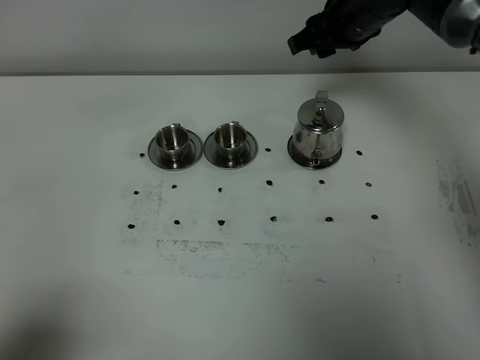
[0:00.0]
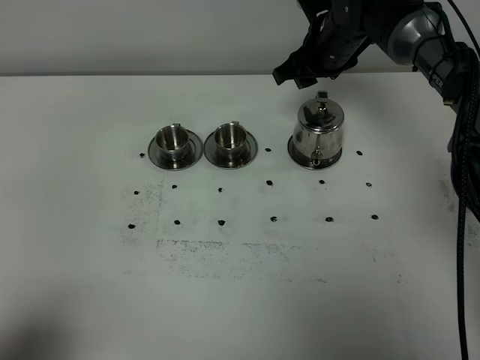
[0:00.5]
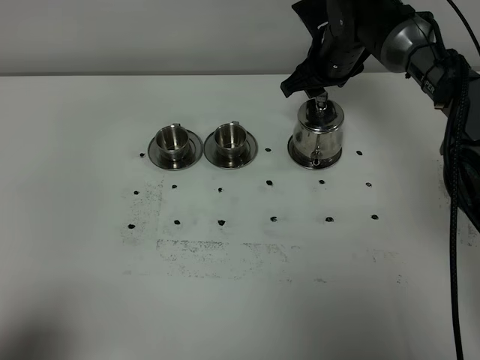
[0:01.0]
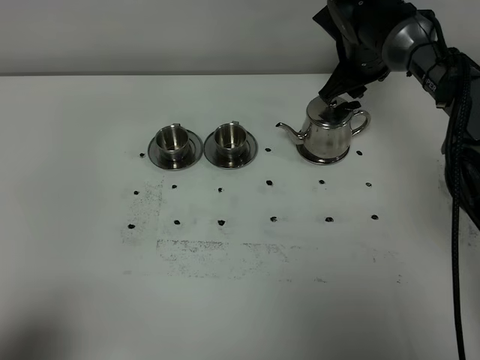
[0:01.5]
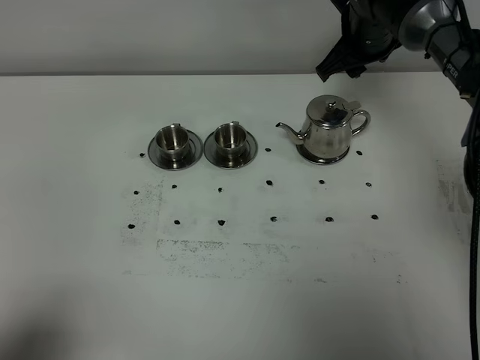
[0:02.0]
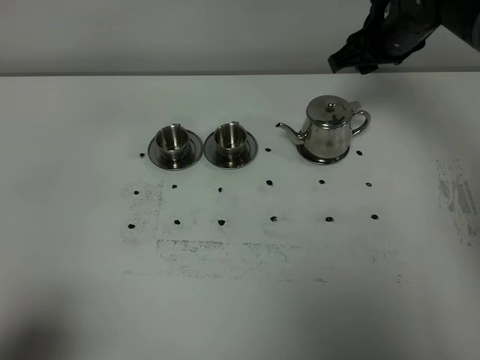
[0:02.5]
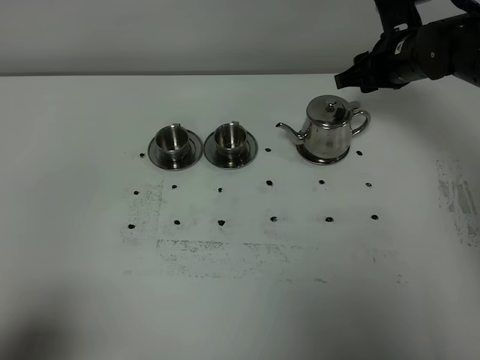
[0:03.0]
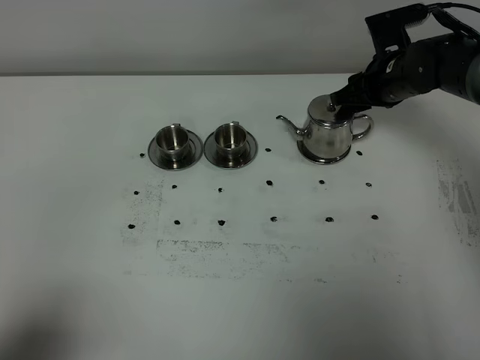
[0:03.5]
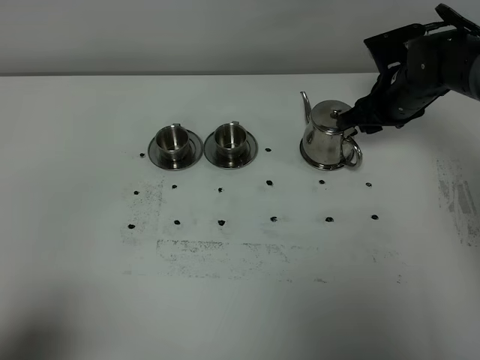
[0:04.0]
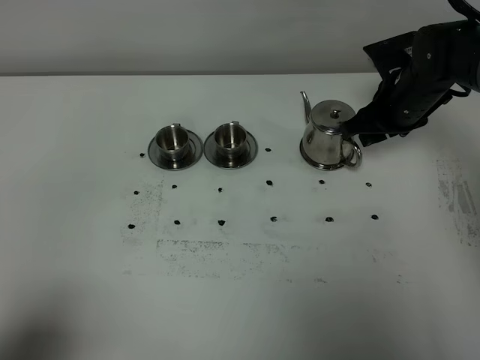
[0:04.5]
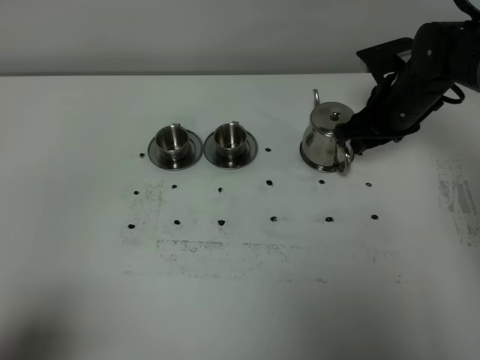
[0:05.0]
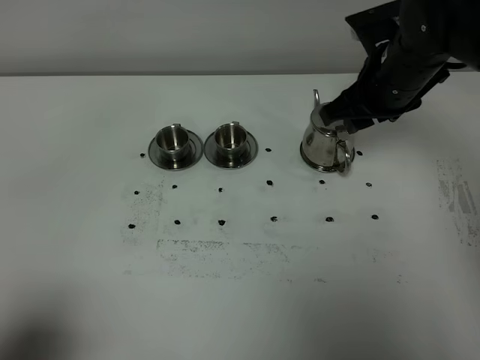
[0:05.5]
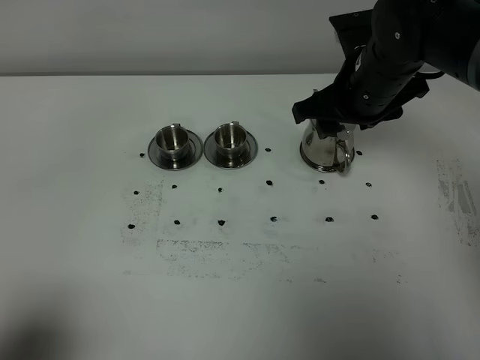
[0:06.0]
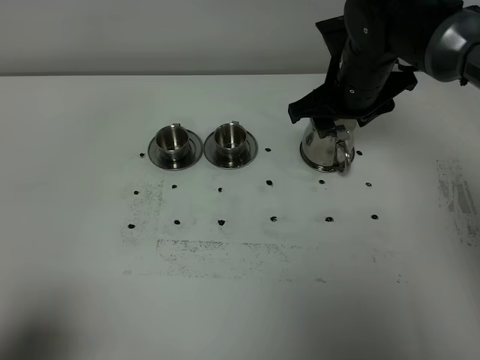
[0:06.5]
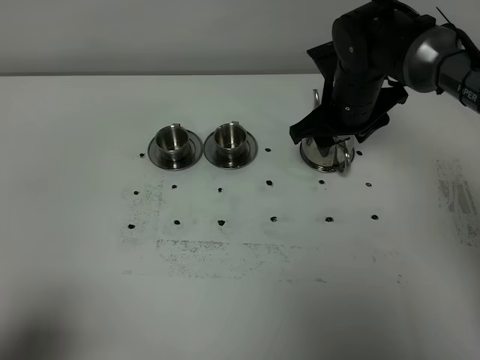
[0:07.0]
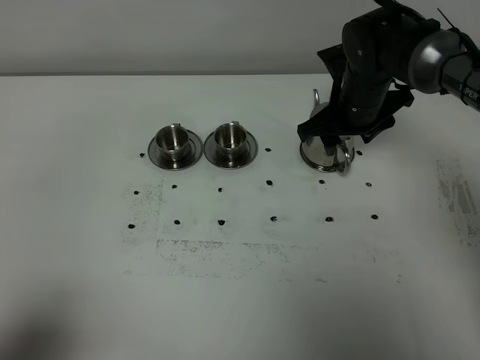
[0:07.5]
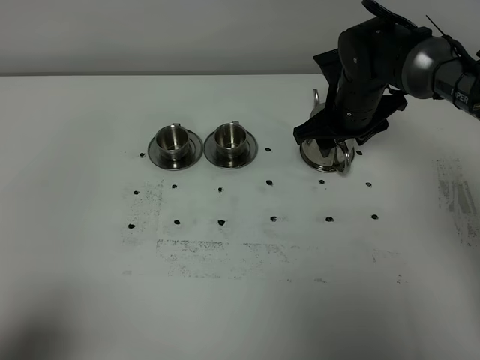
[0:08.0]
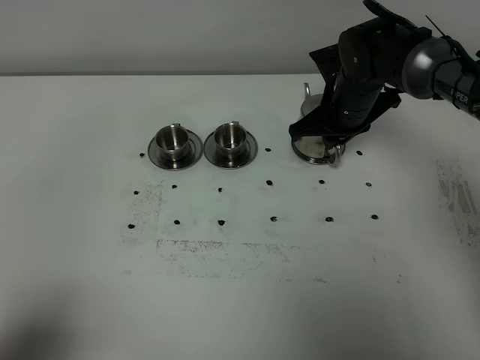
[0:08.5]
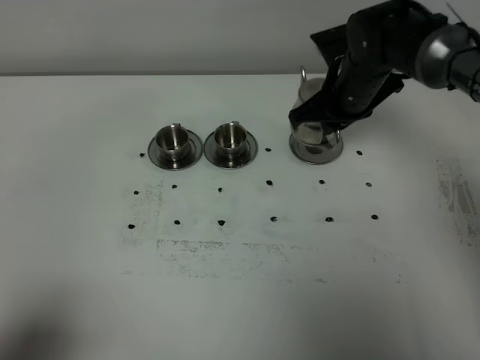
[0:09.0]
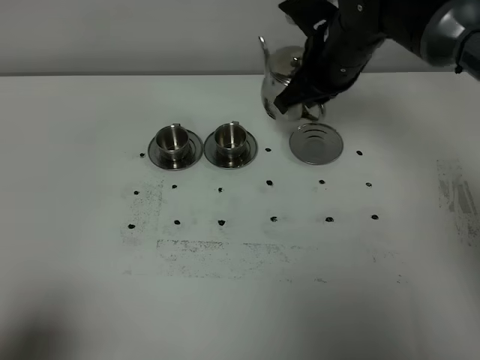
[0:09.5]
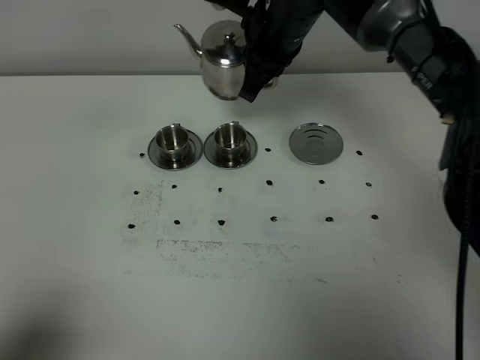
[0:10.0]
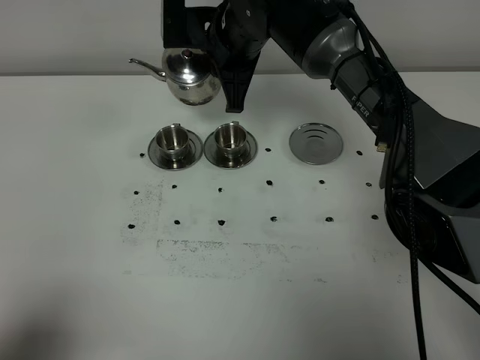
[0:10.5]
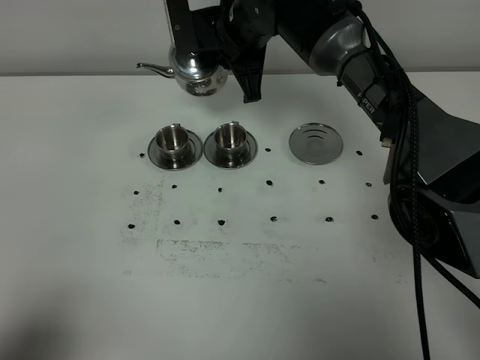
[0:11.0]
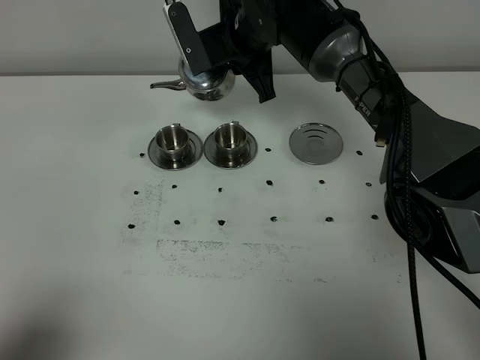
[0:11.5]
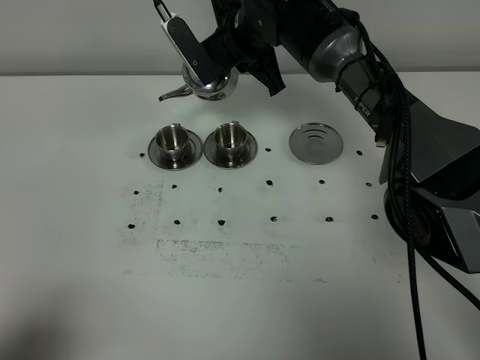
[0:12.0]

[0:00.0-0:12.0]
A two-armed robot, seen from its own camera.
Task of the whole recording: grasp the stainless steel teapot and pour the tea into the two stainless steel teacups one by one, put the stainless steel teapot back in its original place.
Step, 0:00.0 to 0:08.5: Pick up the teapot with the right gripper.
0:00.0 to 0:02.0: The right gripper reaches roughly 10 cm downward, then returns.
0:02.0 to 0:04.0: The right gripper goes some 10 cm downward and to the right.
0:04.0 to 0:06.0: The right gripper moves upward, to the left and backward, about 15 cm.
0:06.0 to 0:08.0: The right gripper is displaced downward and forward by about 10 cm.
0:08.0 to 0:10.0: The right gripper shifts some 15 cm upward and to the left, and closes its fingers.
0:10.0 to 0:12.0: The right gripper changes place by some 5 cm.

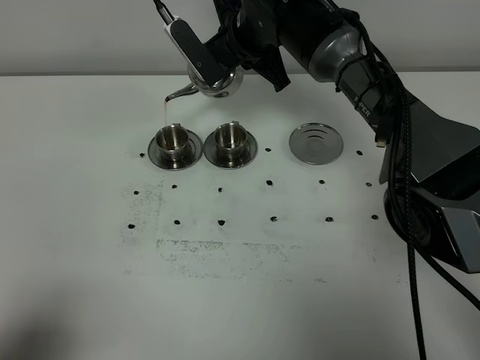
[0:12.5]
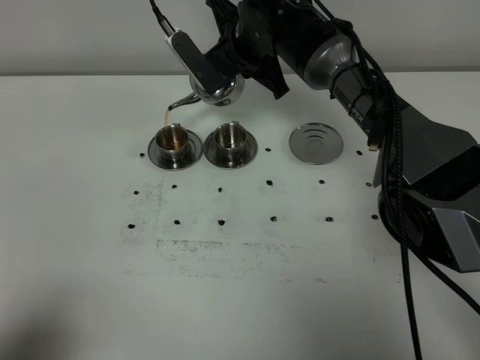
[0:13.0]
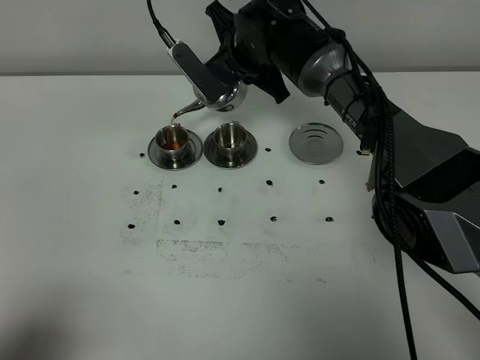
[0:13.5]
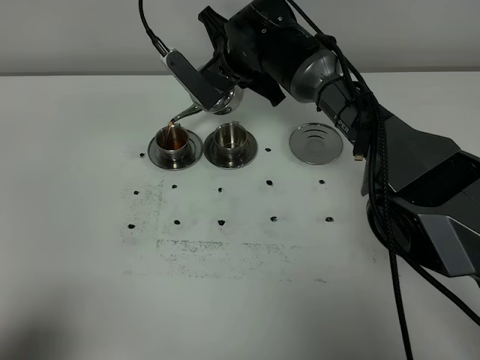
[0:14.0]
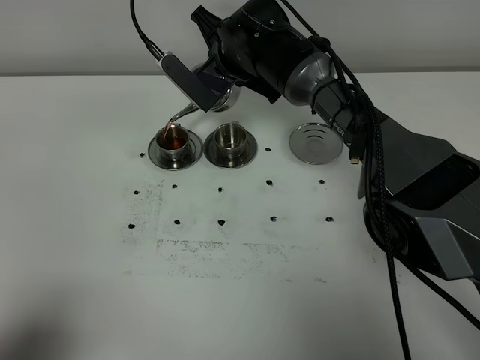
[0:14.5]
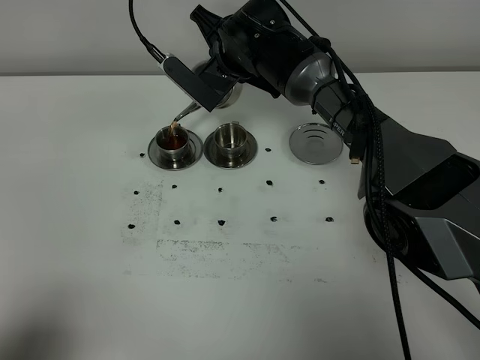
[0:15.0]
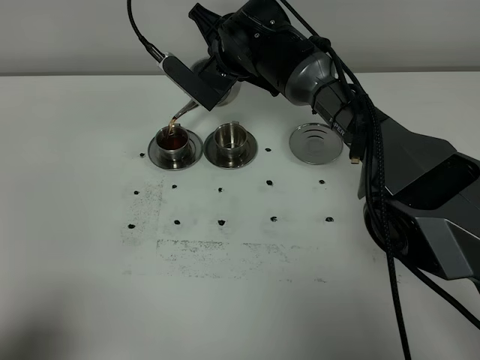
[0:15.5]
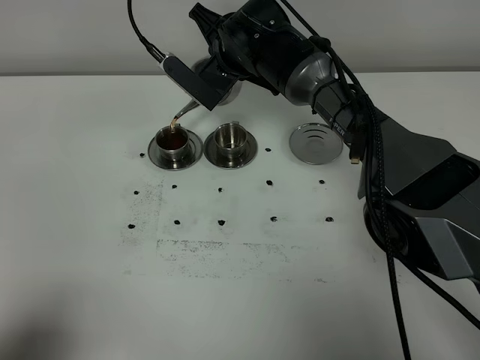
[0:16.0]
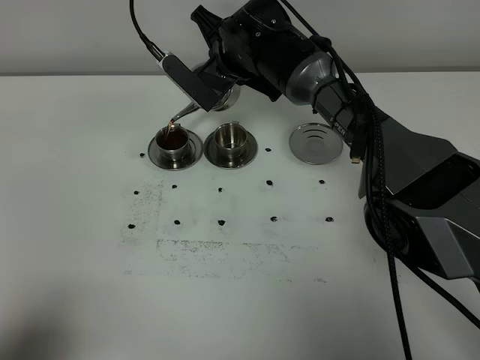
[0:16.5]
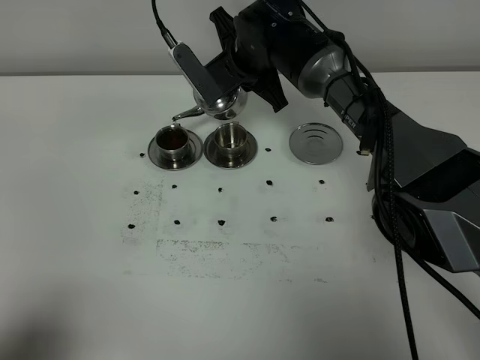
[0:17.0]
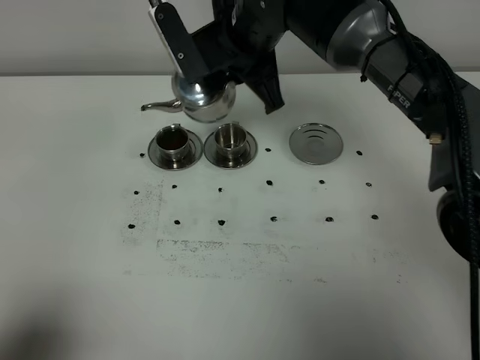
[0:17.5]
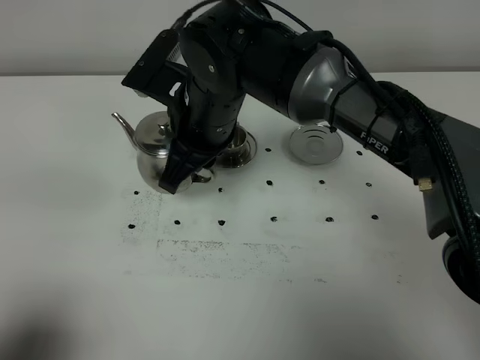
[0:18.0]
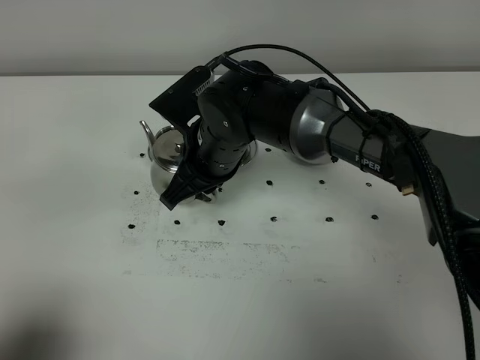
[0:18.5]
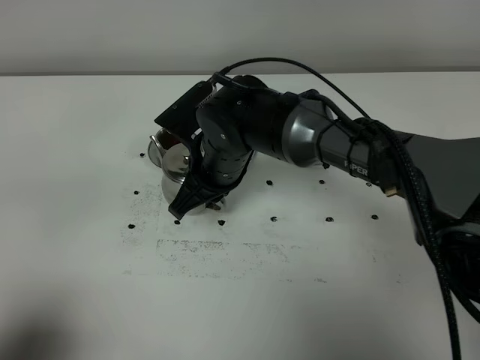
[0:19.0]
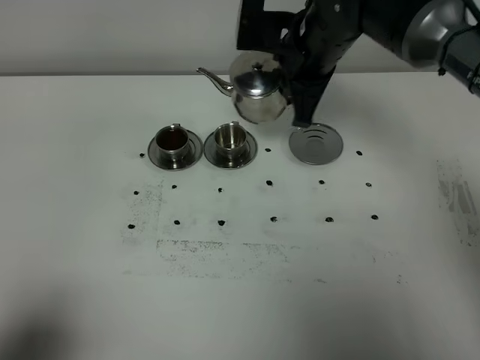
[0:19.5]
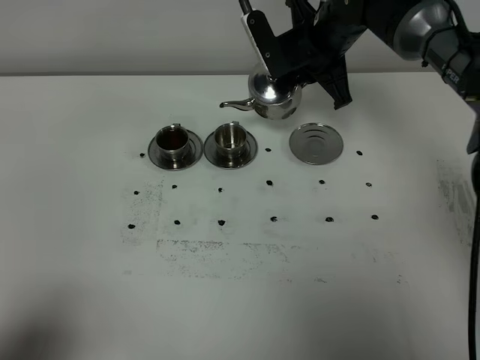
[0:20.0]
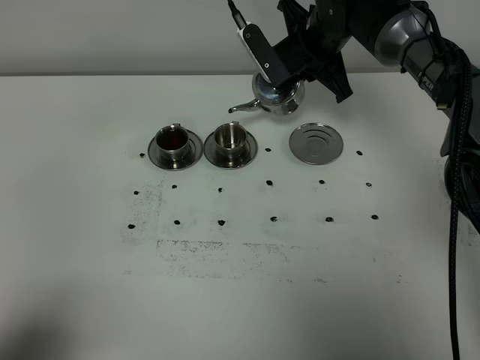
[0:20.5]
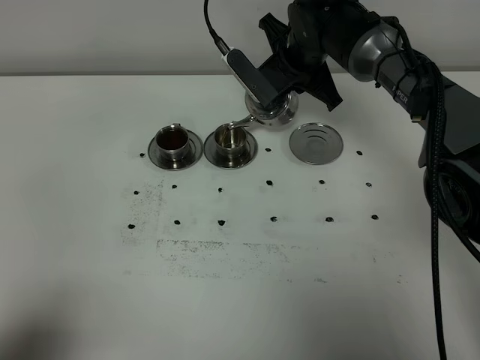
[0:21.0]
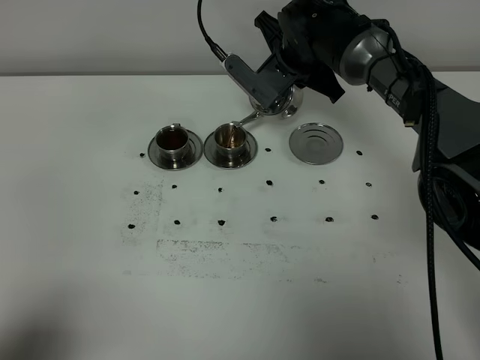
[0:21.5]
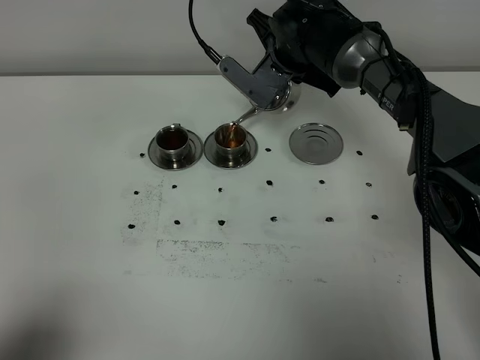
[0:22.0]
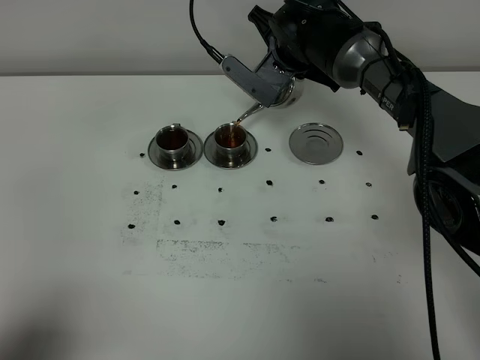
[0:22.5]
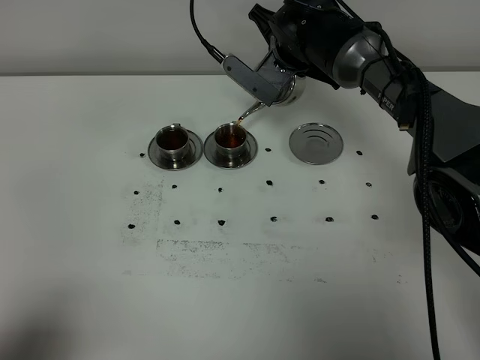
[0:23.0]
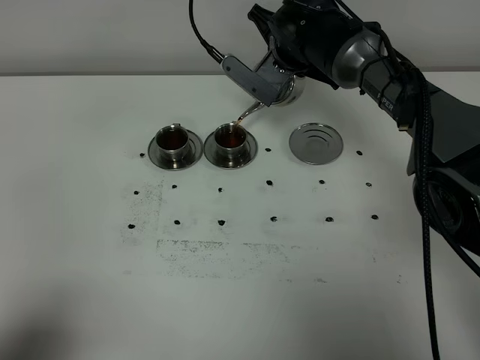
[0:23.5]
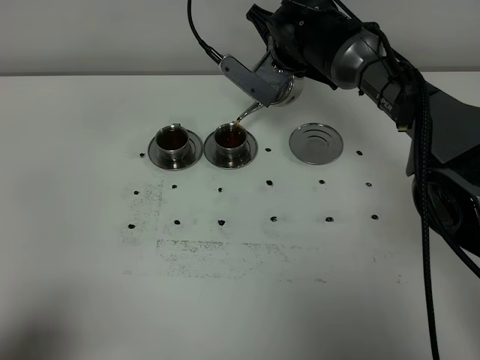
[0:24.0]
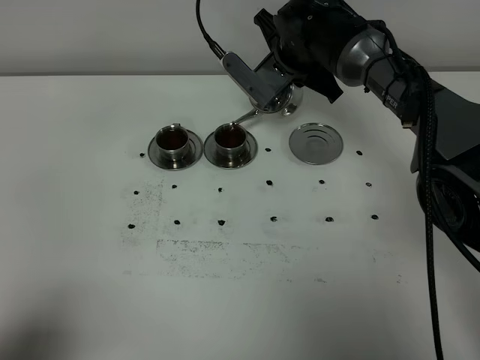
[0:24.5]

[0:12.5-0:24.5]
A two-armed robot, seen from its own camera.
Task of the whole recording: grasp the stainless steel teapot and pour the tea into the two stainless steel teacups one by one, put the stainless steel teapot back in its original place.
Step, 0:12.5 to 0:17.0: Pour tea into the teacup with the right gripper.
0:12.5 to 0:16.5: The grippers move only a little.
0:16.5 to 0:18.5: The right gripper is displaced backward by about 15 cm.
0:18.5 to 0:20.5: The right gripper shifts approximately 20 cm forward and to the right.
0:22.5 to 0:24.5: The grippers move only a little.

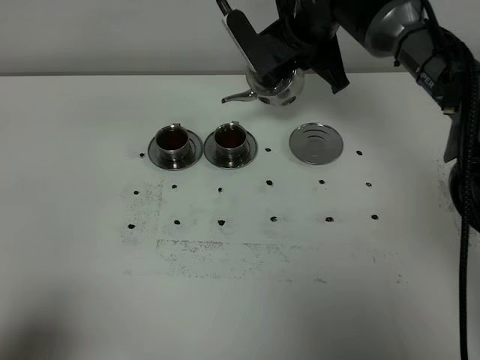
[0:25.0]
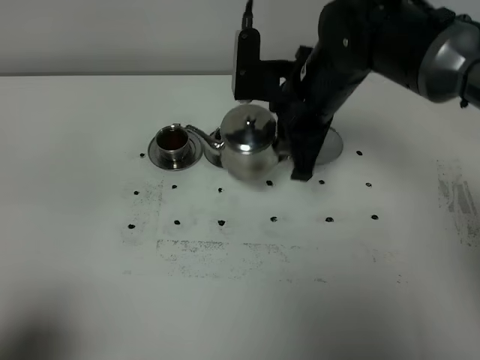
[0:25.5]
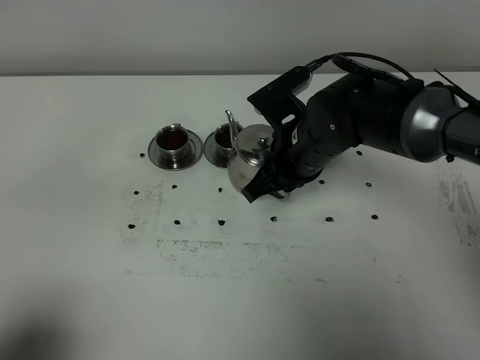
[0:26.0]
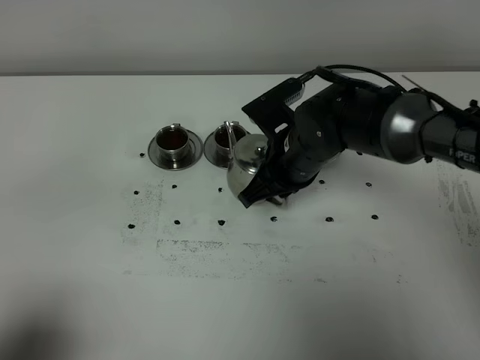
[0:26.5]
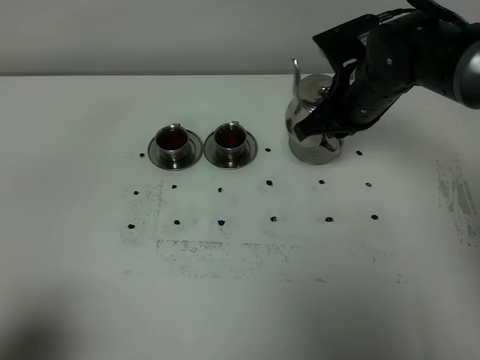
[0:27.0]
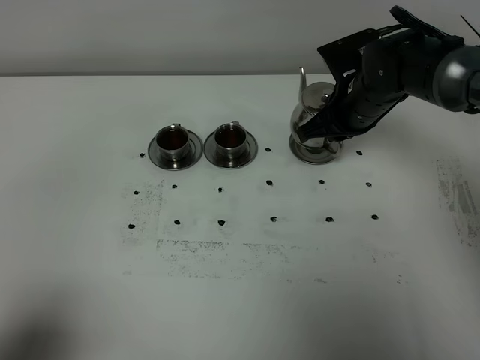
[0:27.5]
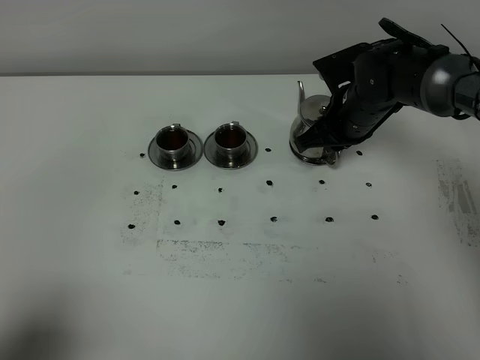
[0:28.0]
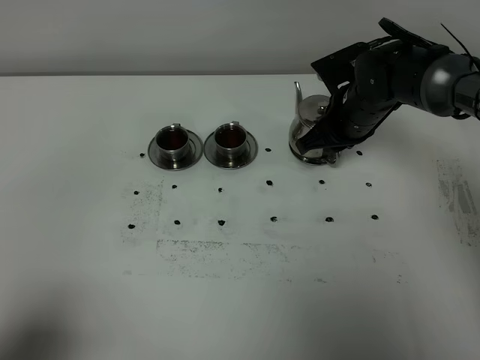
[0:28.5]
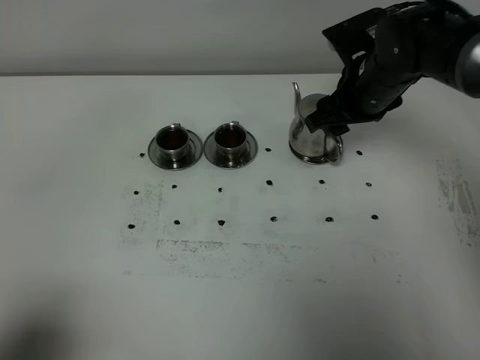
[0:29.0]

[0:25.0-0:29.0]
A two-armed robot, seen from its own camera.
Task of the whole recording: grasp the stainless steel teapot and pour the tea into the two stainless steel teacups one by one, put the stainless steel teapot back in its original place.
0:25.0 to 0:27.0: The right gripper travels backward, to the right and downward by roughly 10 cm.
0:27.0 to 0:29.0: The right gripper opens its fingers.
